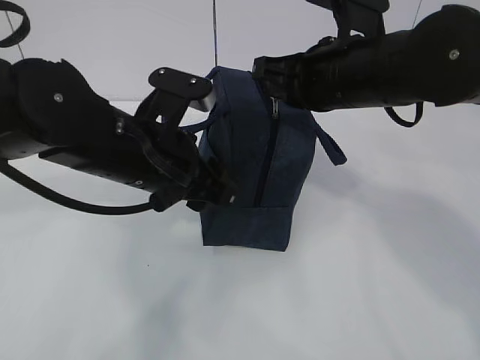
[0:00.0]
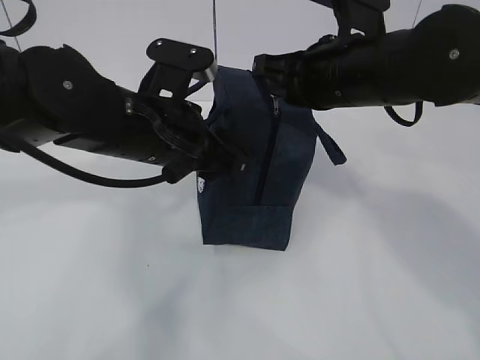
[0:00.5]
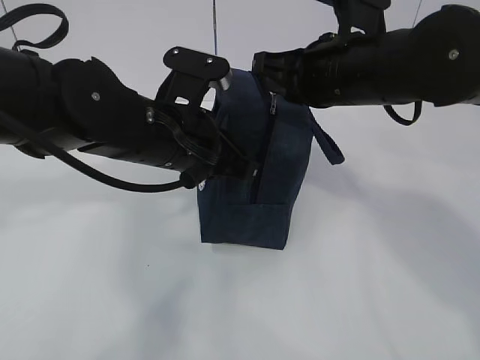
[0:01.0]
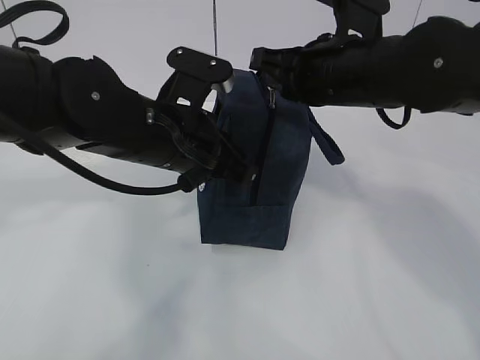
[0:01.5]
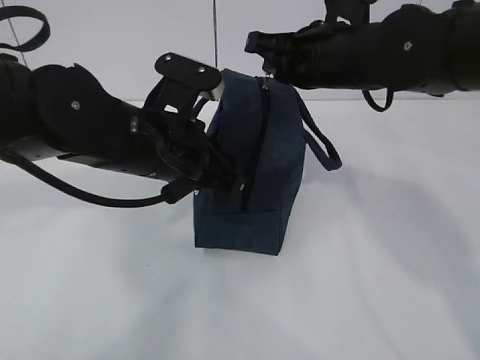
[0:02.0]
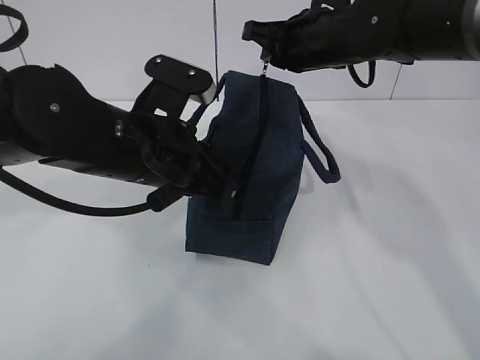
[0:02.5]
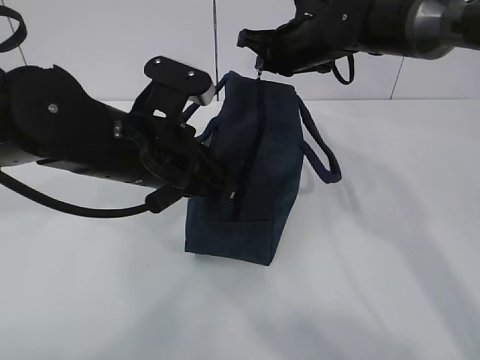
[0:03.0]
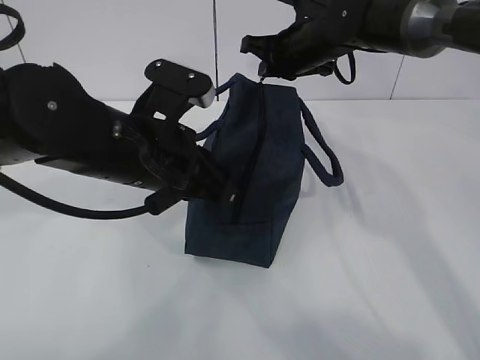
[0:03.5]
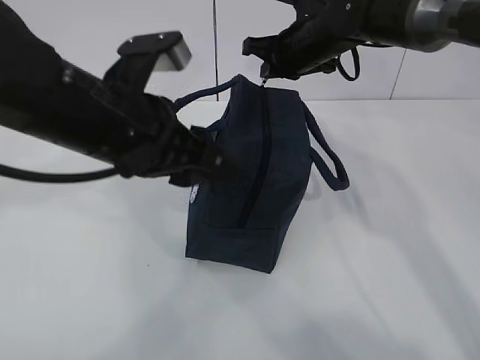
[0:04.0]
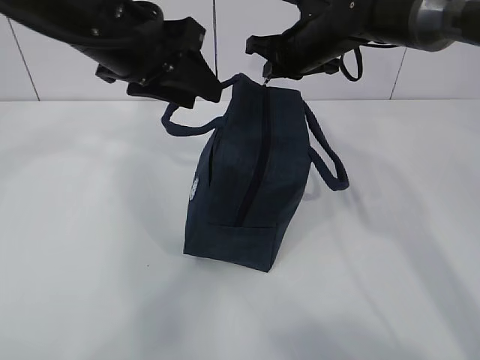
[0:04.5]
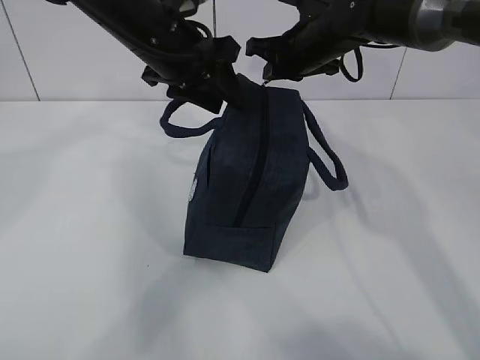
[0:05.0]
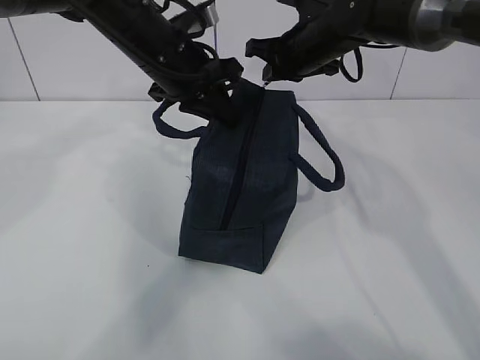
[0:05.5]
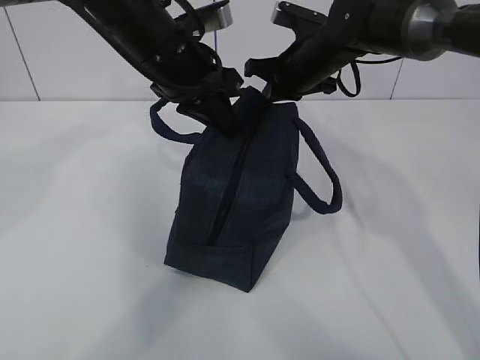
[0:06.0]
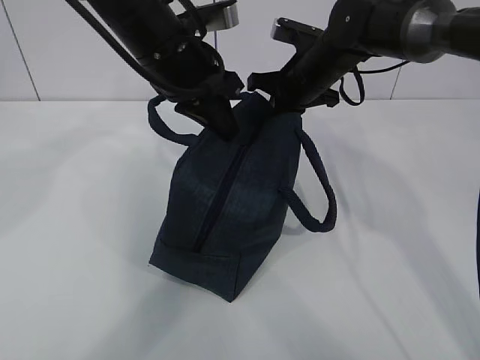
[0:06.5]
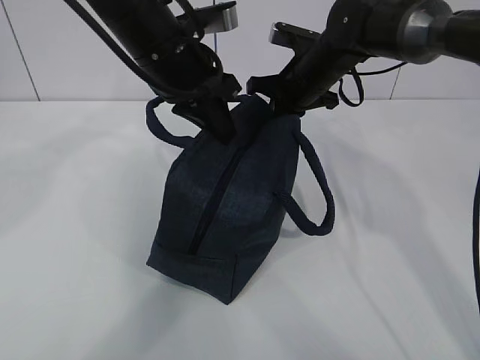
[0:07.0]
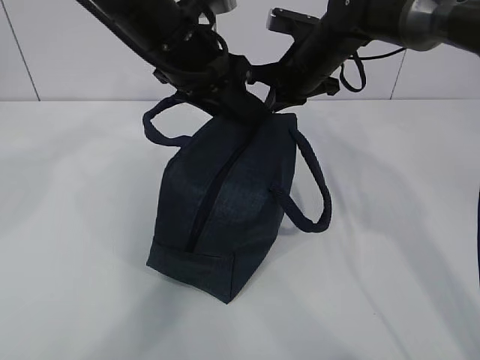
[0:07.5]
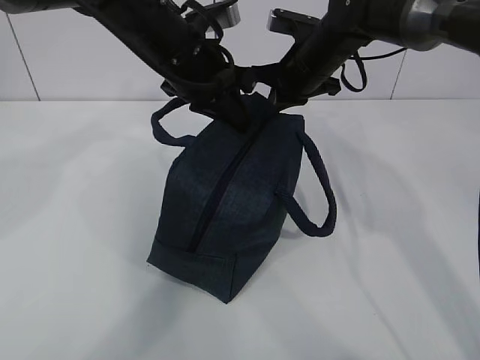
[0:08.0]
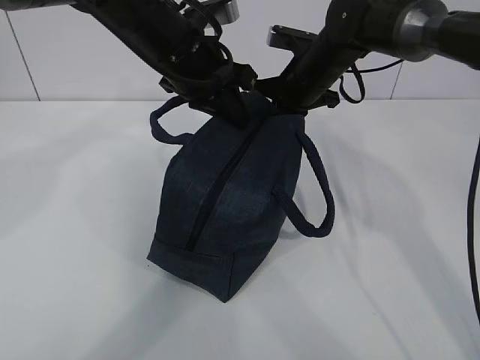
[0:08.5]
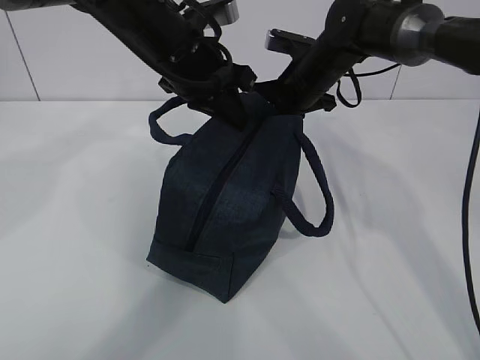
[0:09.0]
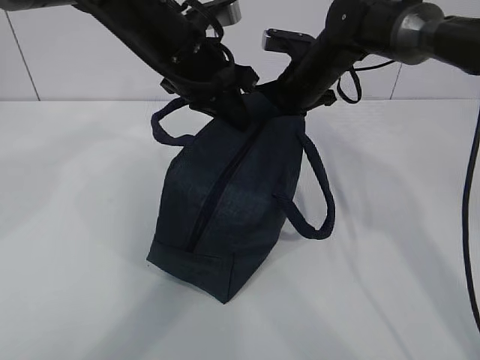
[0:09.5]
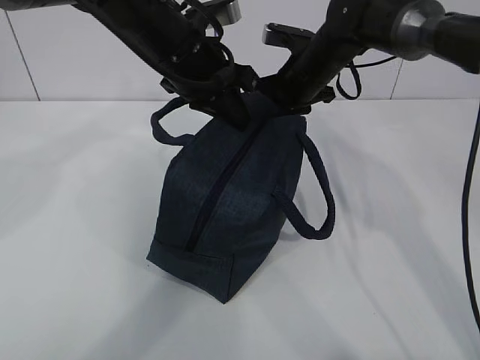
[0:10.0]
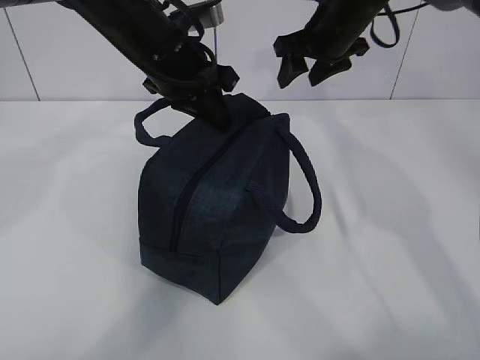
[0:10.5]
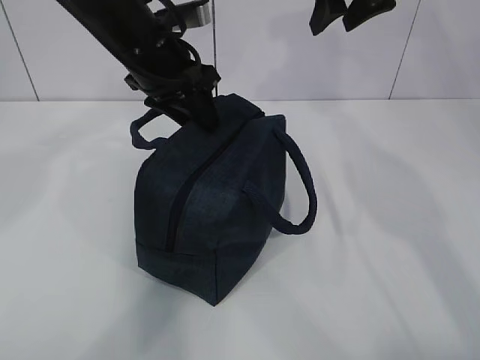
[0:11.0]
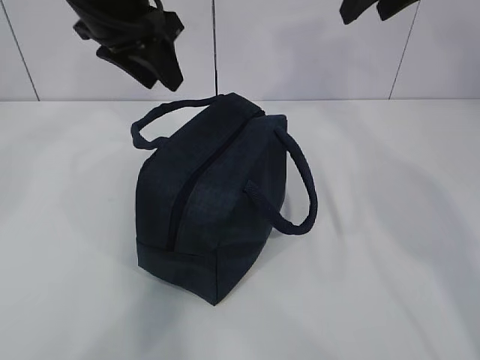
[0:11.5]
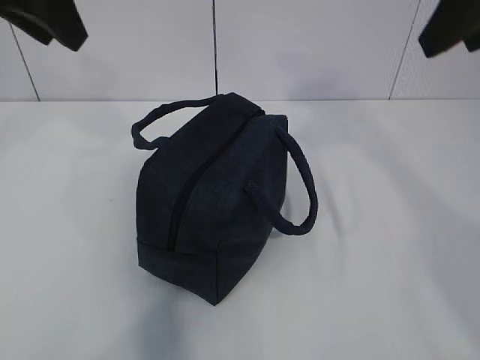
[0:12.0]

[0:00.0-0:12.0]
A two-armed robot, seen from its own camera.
0:00.0 to 0:02.0: The left gripper closes.
0:02.0 to 0:04.0: The right gripper travels forward by some 10 cm, while the left gripper moves about 5 cm, and opens its fingers.
0:04.0 to 0:06.0: The left gripper travels forward by some 15 cm, and closes its fingers.
0:06.0 to 0:08.0: The left gripper opens, then closes again.
0:08.0 to 0:10.0: The right gripper opens.
0:10.0 to 0:12.0: The left gripper is displaced upward, to the left and backward by about 20 cm, and opens; the right gripper shifts approximately 30 cm backward and upward.

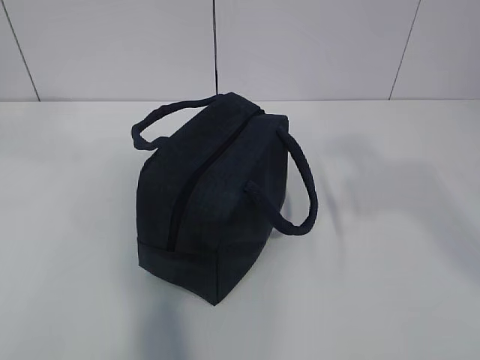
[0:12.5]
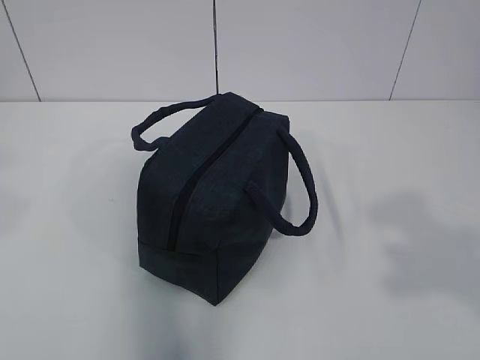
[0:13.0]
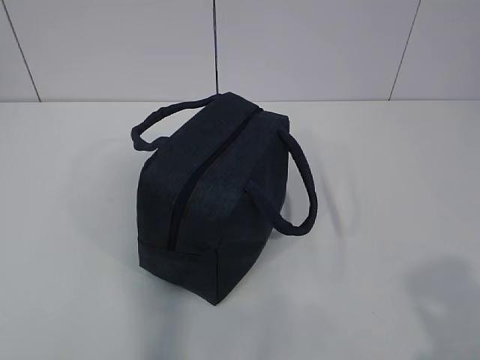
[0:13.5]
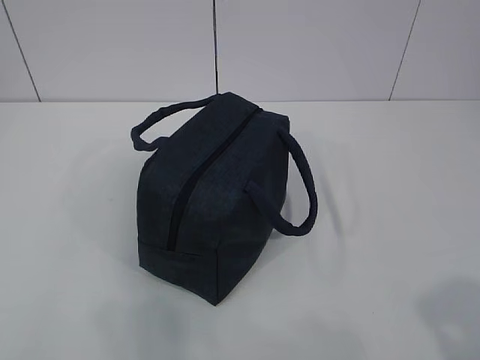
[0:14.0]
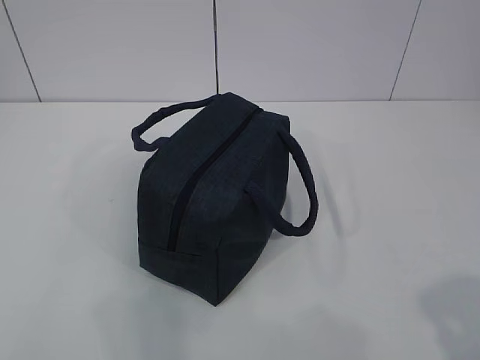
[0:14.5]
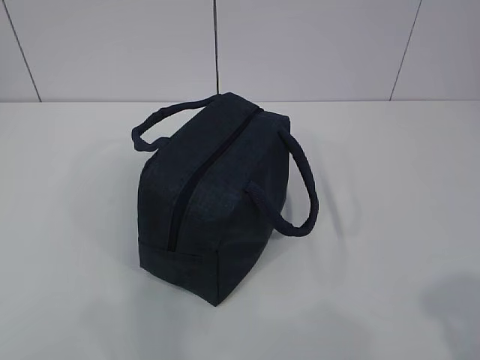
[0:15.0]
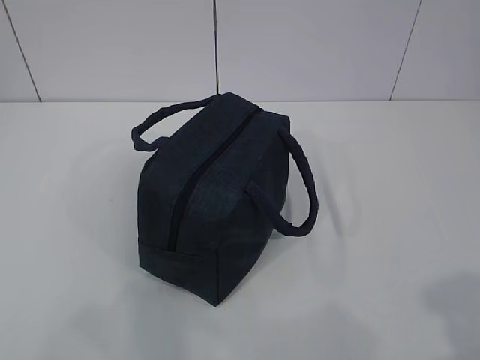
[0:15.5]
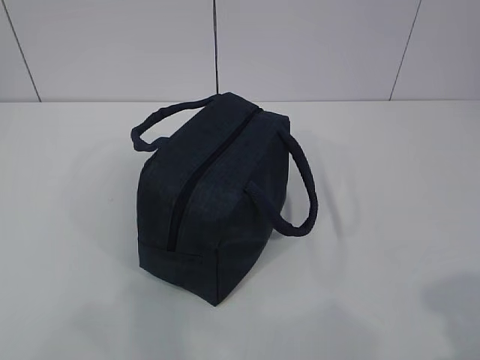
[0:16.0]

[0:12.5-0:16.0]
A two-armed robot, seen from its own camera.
0:12.5 to 0:14.5: The left gripper travels backward, downward and to the left by approximately 25 cm. Meanwhile the right gripper shifts some 20 cm backward and downward.
